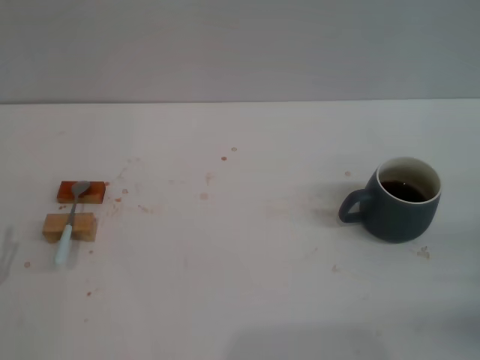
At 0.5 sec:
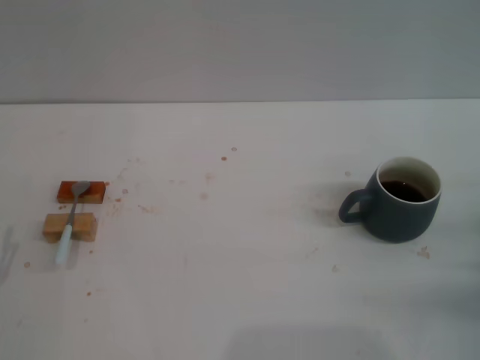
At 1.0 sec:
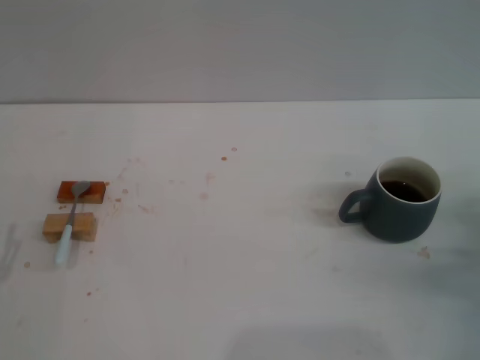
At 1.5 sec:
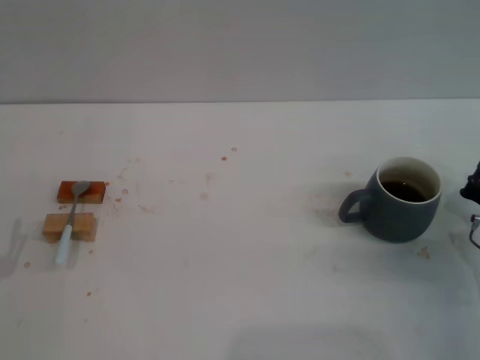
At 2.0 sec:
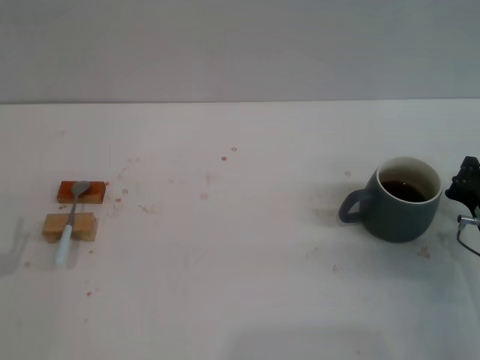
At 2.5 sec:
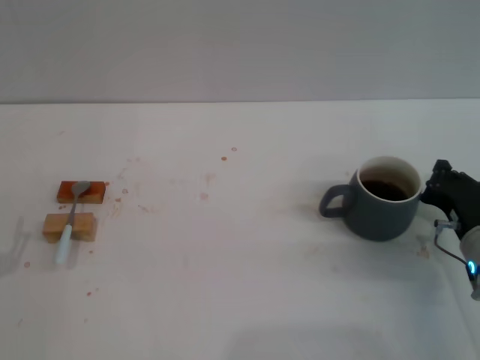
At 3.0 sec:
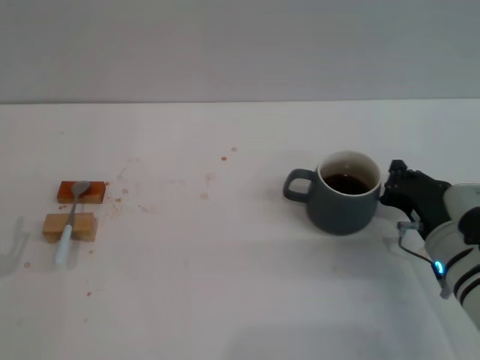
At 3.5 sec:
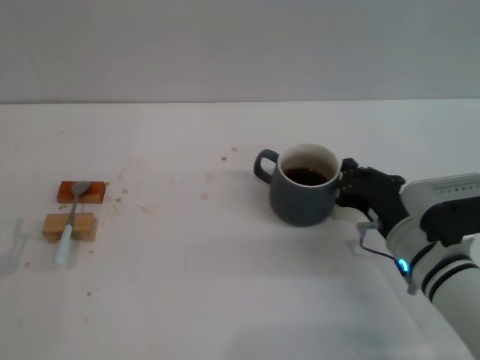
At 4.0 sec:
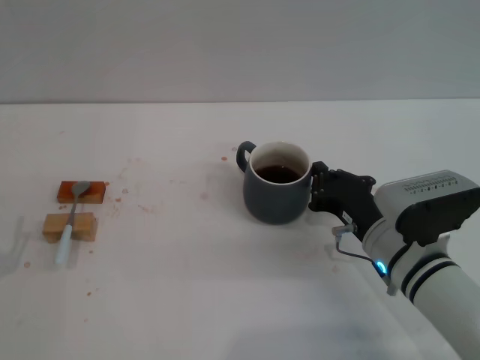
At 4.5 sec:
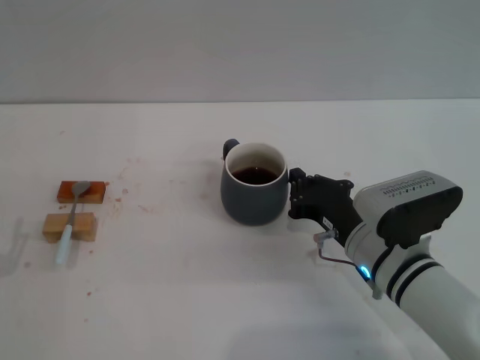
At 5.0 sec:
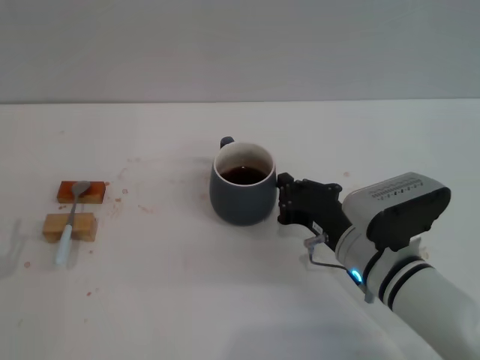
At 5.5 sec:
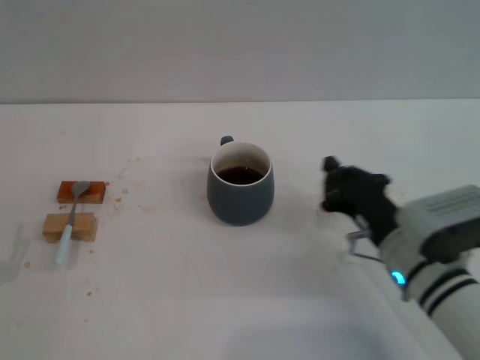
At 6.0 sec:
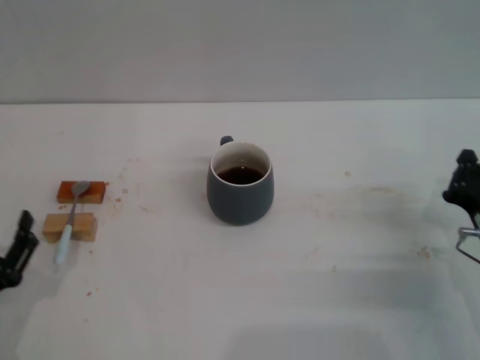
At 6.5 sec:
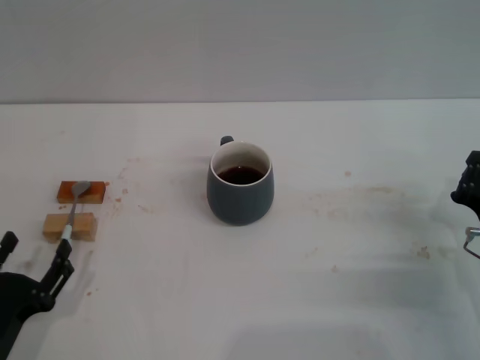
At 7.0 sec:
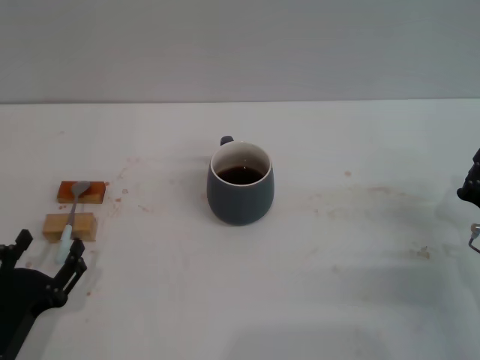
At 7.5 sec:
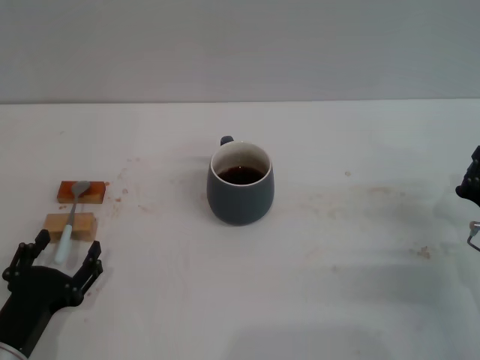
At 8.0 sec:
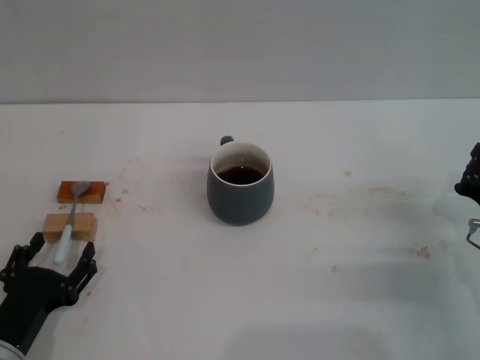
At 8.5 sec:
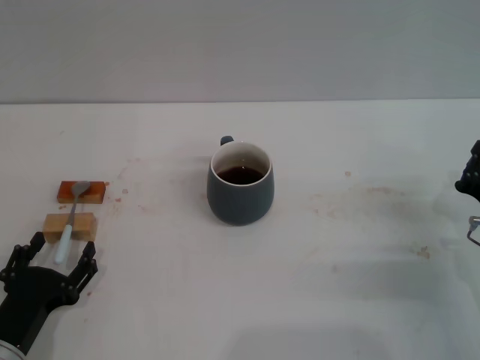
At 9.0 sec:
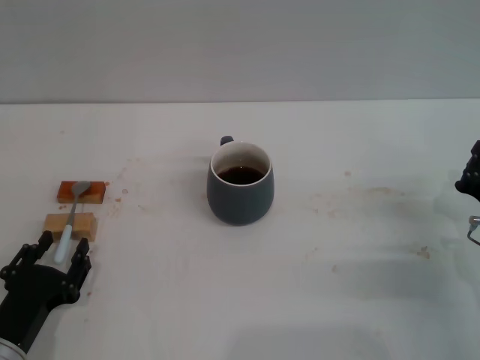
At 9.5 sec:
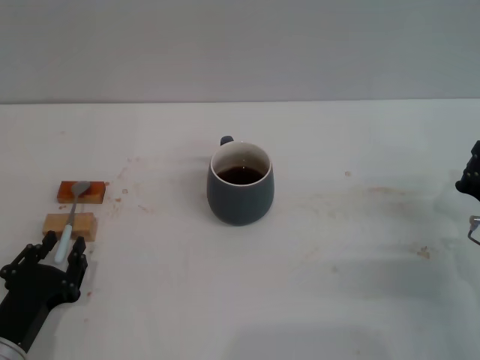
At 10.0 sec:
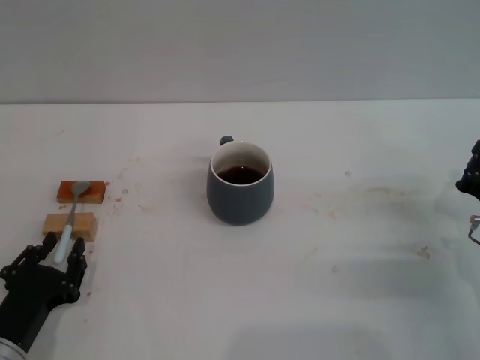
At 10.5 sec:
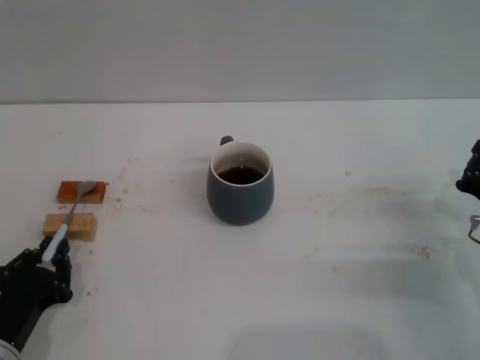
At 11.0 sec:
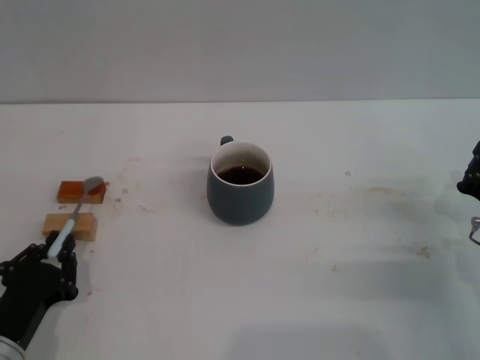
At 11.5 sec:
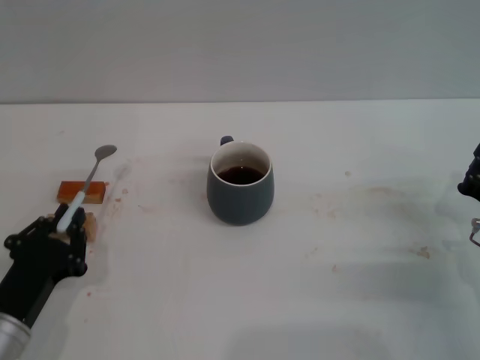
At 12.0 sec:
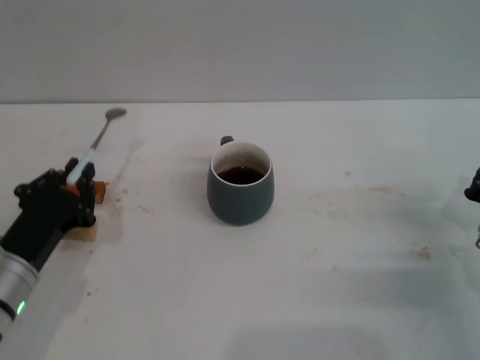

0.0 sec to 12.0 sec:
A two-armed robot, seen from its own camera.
Task of the whole recording: Move the grey cup to the center, lift the blue spoon, stir it three times in the cup, and put the spoon into the cup.
Step, 0.0 sec to 5.5 sec: Move the cup with coffee to the center of view with the right gripper.
0.0 sec to 2.0 sec: The right gripper moves forward and to the left, some 10 cm.
2.0 sec to 4.0 sec: The right gripper goes roughly 10 cm to the left.
4.0 sec to 6.0 sec: The right gripper is displaced to the right by approximately 10 cm.
6.0 sec to 8.0 sec: The grippers stay close to where they were, moving slightly.
8.0 sec to 10.0 sec: The left gripper closes its fingers.
10.0 sec to 12.0 sec: The left gripper shifts approximately 10 cm forward and upward.

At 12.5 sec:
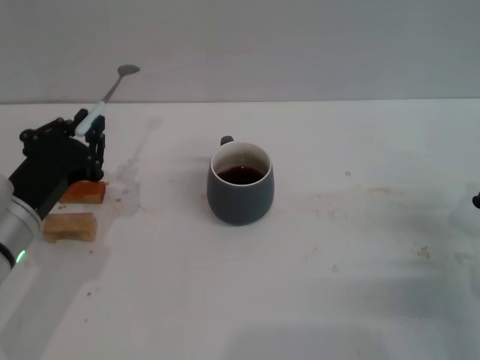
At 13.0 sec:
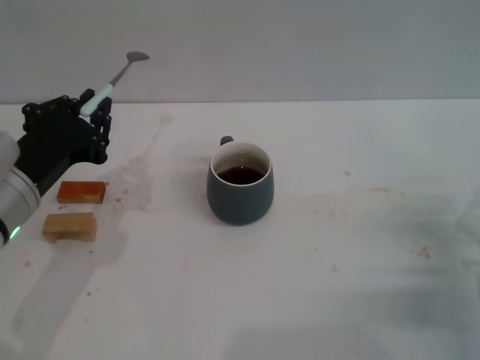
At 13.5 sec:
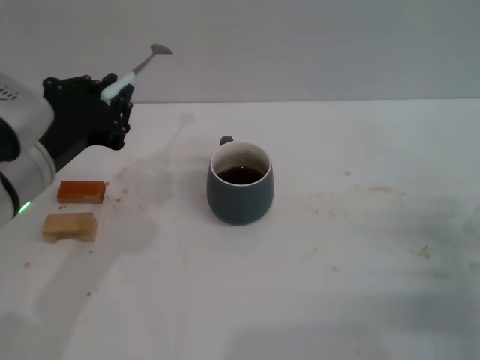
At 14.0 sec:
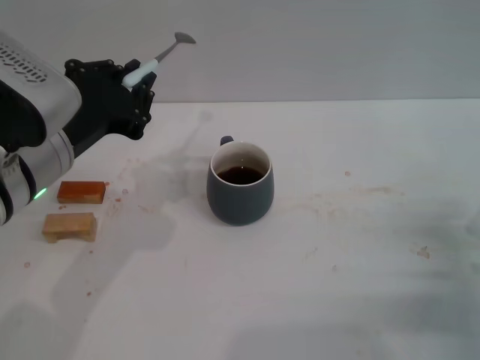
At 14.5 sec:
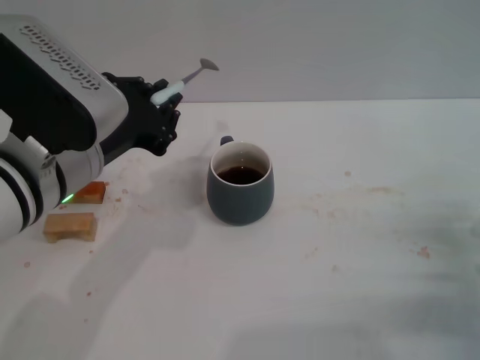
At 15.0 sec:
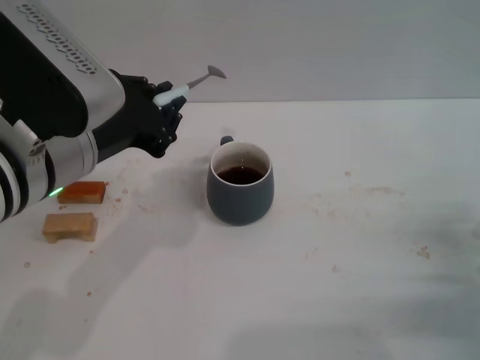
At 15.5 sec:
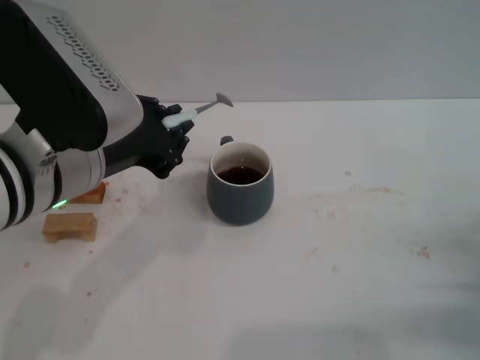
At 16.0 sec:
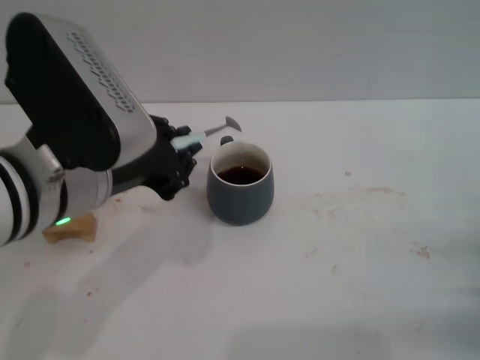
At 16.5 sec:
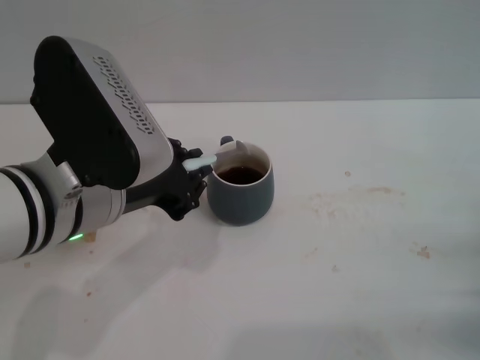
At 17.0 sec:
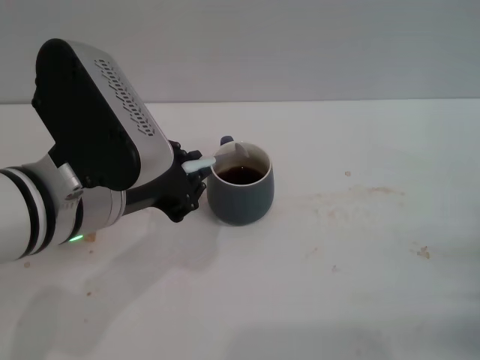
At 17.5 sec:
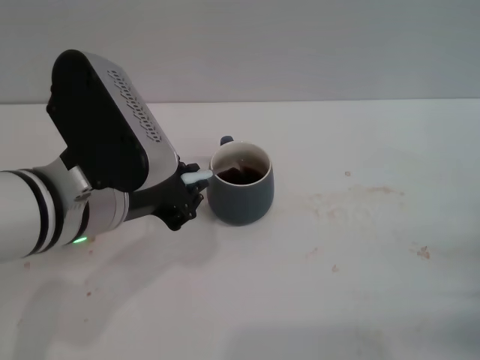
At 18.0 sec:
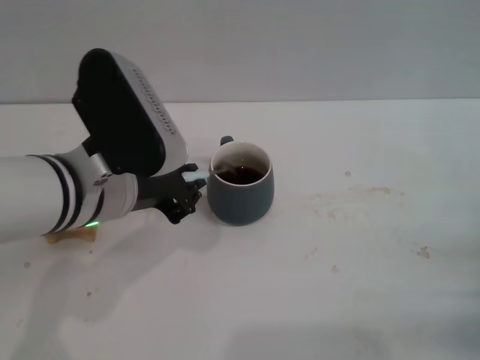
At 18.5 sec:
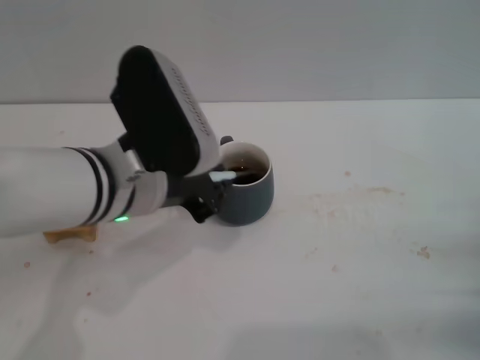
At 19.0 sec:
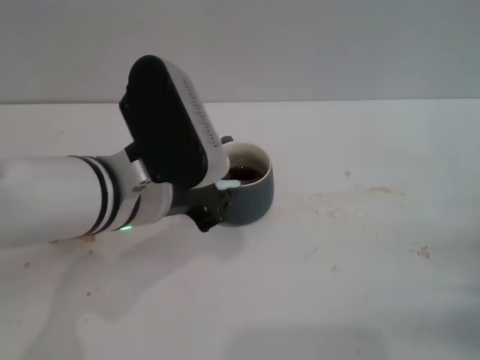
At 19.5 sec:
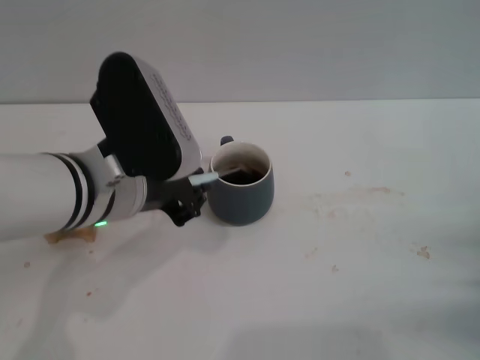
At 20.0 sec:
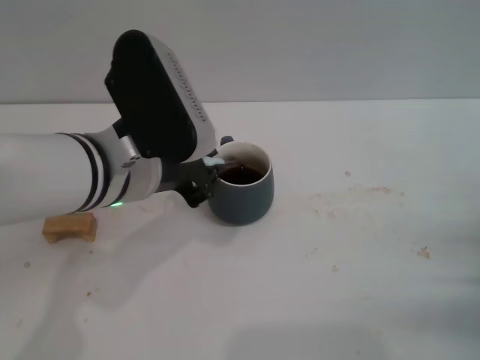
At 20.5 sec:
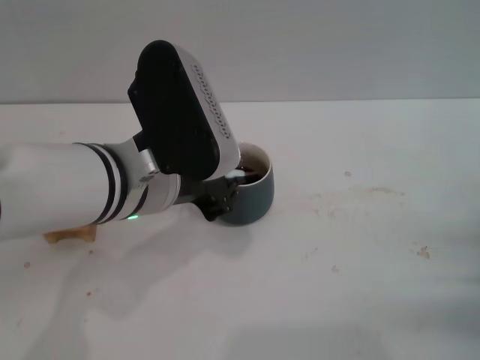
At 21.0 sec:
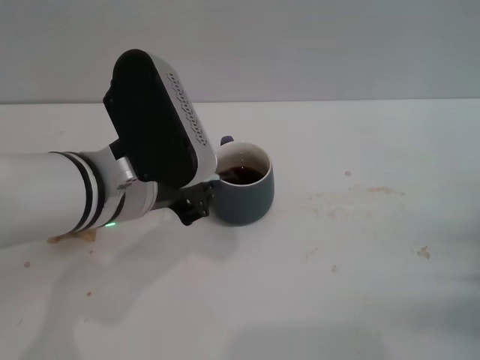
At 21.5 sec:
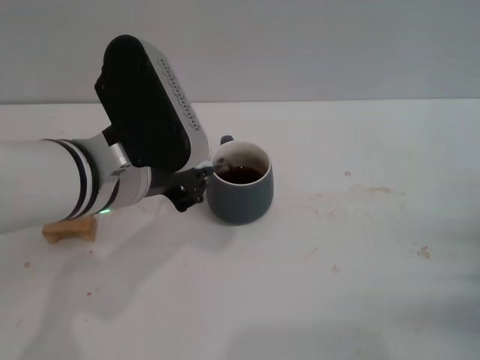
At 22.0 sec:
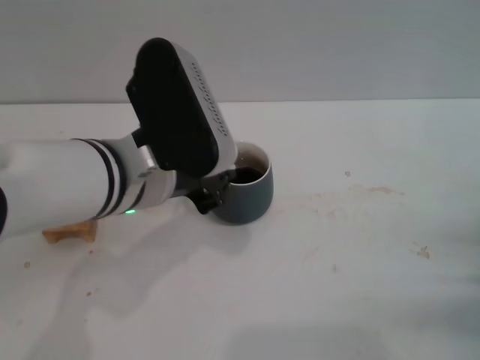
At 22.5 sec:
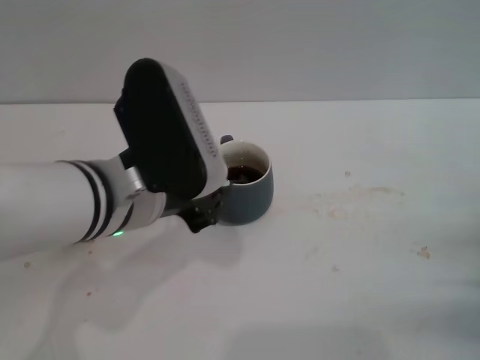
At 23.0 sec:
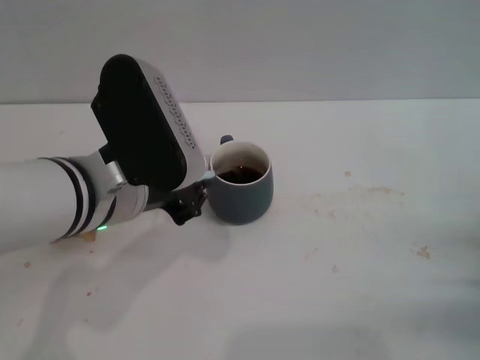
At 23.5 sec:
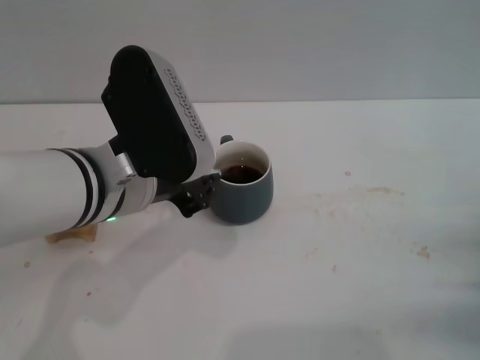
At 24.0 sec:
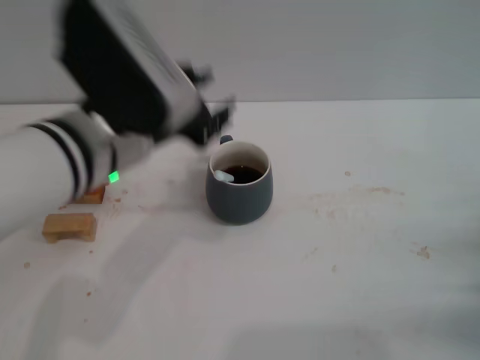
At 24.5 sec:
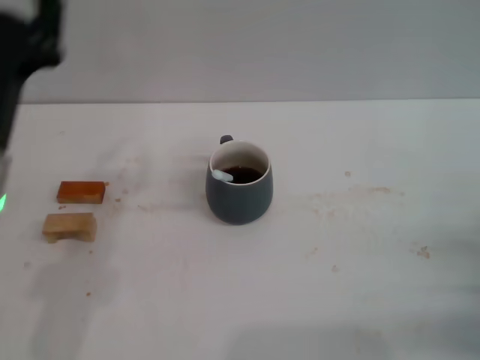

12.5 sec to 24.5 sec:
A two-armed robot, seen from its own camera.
Task of the whole recording: Move the grey cup to the center, lift the blue spoon, stir it three times in the cup, and put the spoon into the cup.
Step, 13.0 sec to 23.5 sec: Stir the coffee in the cup with the left gripper.
12.5 sec to 14.5 sec: The left gripper moves upward and to the right, roughly 10 cm.
14.5 sec to 16.5 sec: There are only small adjustments of the grippers.
16.5 sec to 18.5 sec: The left gripper ends up roughly 5 cm from where it was.
18.5 sec to 22.5 sec: The grippers stay close to where they were, moving slightly.
22.5 sec to 24.5 sec: The left gripper goes approximately 10 cm to the left.

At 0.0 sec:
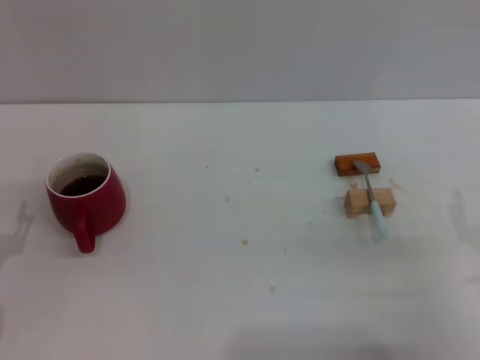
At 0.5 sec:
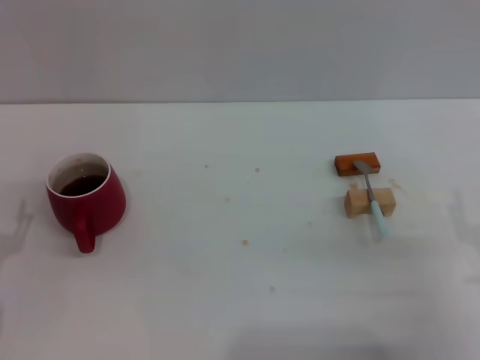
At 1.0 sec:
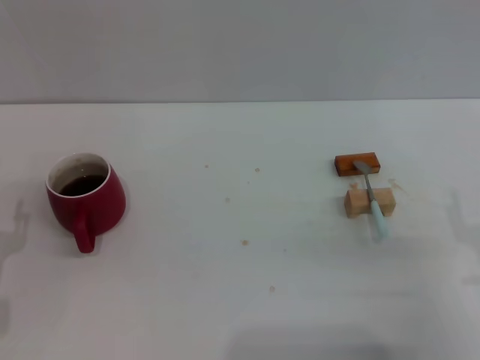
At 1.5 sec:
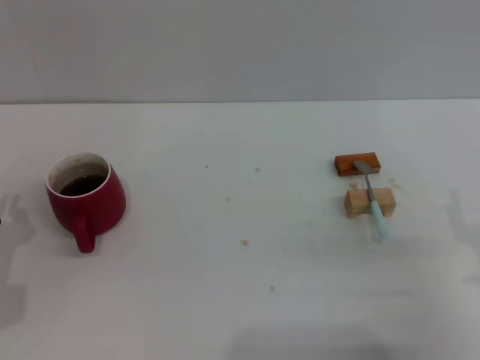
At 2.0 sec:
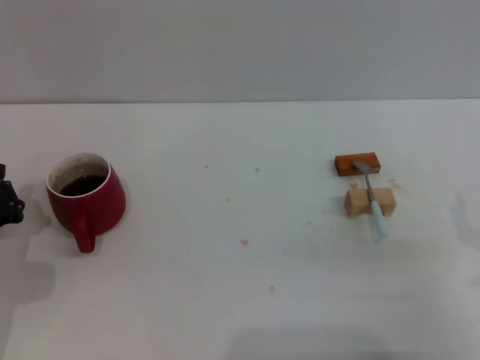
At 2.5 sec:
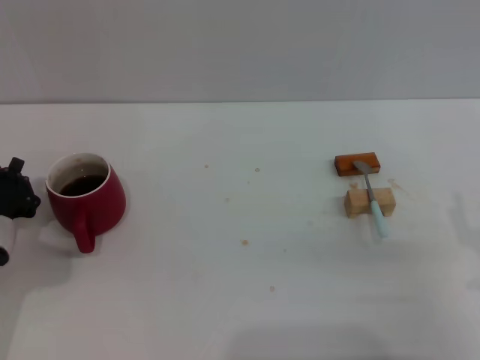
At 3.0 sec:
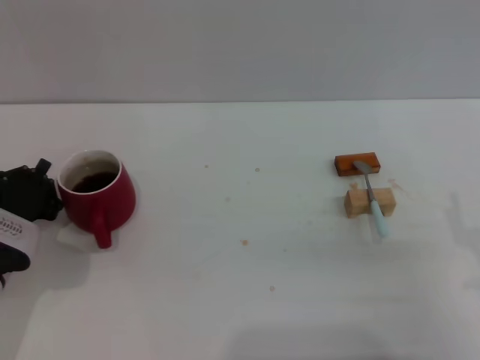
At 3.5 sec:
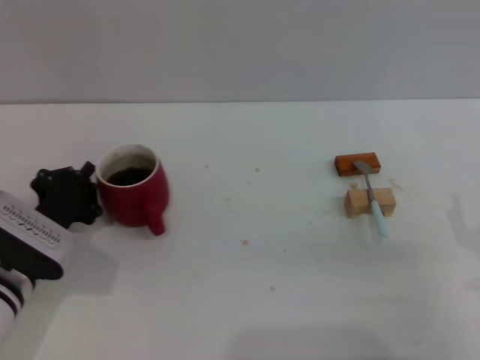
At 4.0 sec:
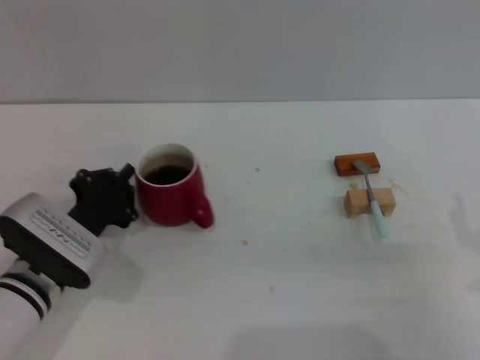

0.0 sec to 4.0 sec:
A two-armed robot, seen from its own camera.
Task of the whole recording: Move the red cup to the center, lift the blue spoon, stir it three times in the cup, and put the spoon into the cup.
0.0 sec to 2.0 sec: The left gripper ends up roughly 5 cm from where it was, and closes up.
2.0 sec to 4.0 sec: The left gripper moves to the right, about 10 cm.
